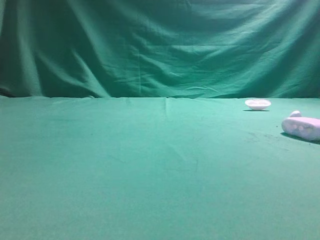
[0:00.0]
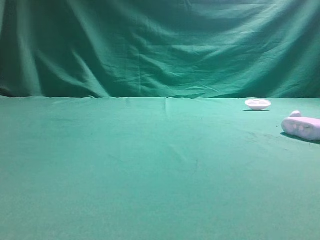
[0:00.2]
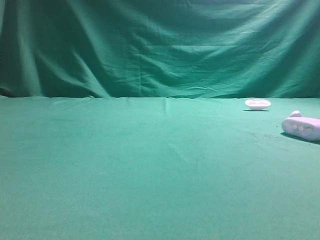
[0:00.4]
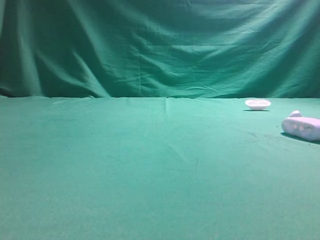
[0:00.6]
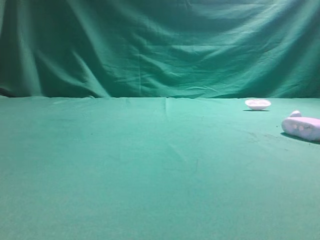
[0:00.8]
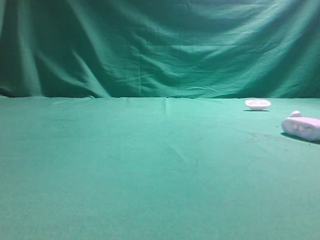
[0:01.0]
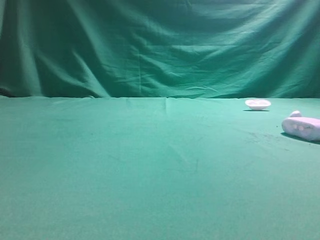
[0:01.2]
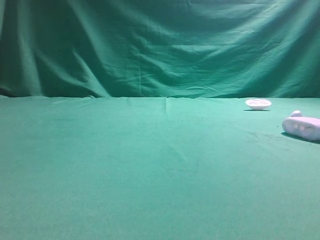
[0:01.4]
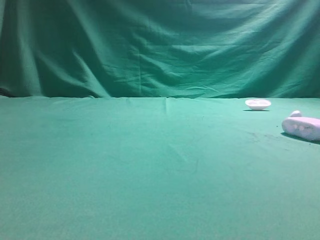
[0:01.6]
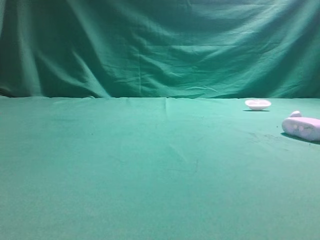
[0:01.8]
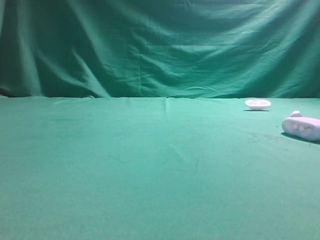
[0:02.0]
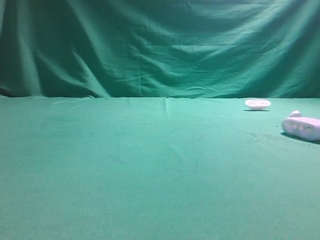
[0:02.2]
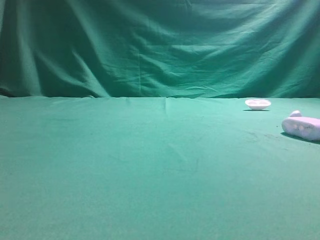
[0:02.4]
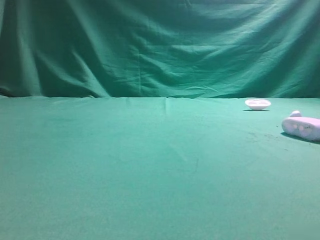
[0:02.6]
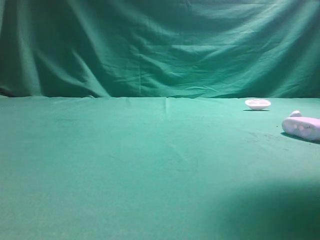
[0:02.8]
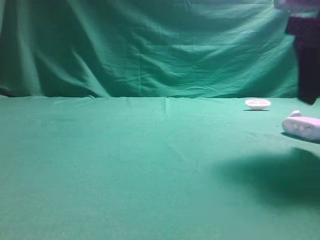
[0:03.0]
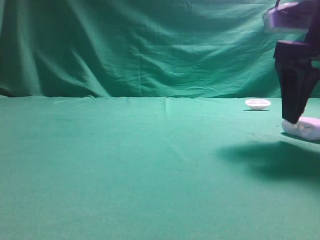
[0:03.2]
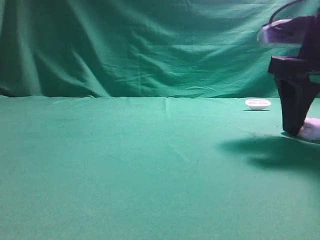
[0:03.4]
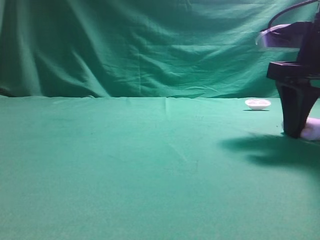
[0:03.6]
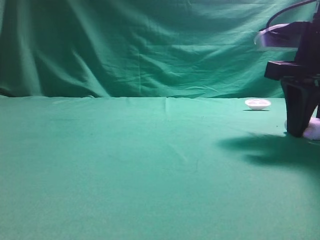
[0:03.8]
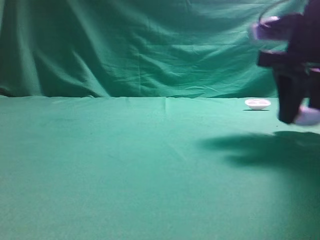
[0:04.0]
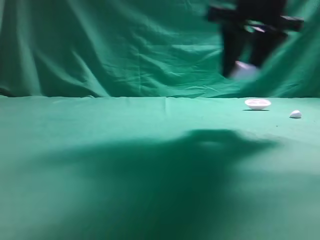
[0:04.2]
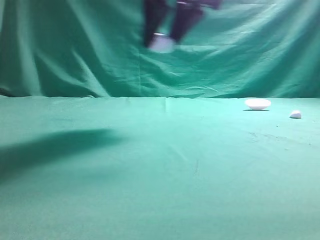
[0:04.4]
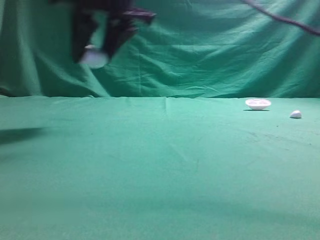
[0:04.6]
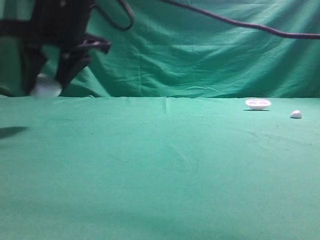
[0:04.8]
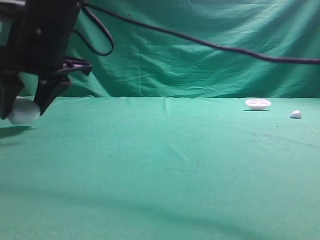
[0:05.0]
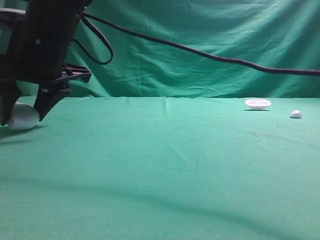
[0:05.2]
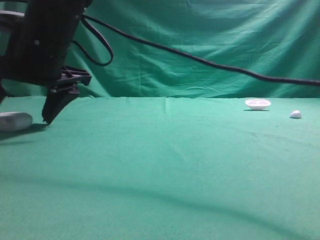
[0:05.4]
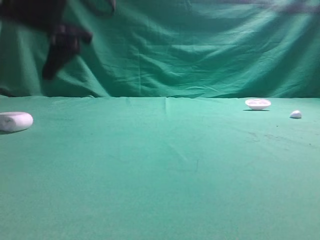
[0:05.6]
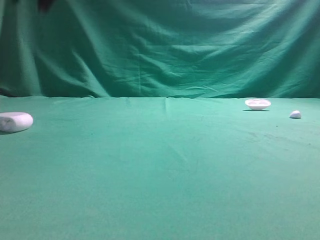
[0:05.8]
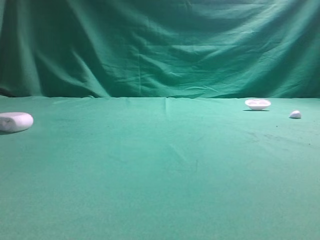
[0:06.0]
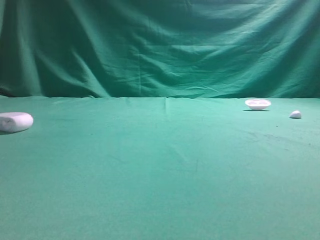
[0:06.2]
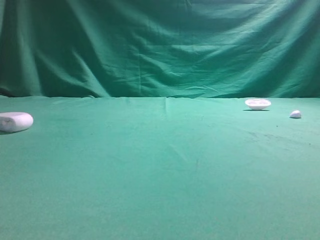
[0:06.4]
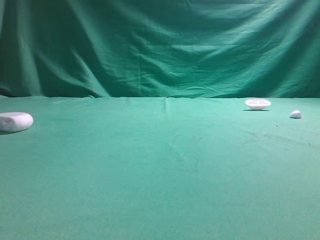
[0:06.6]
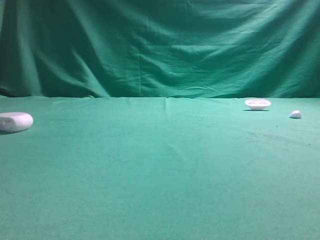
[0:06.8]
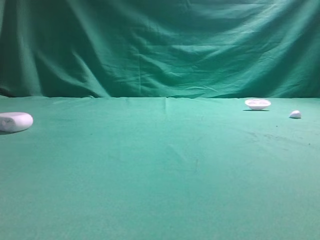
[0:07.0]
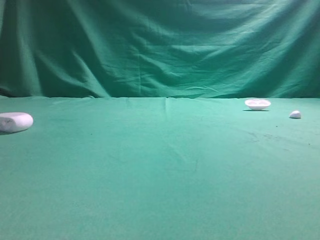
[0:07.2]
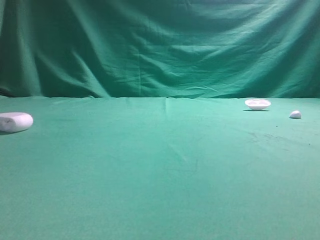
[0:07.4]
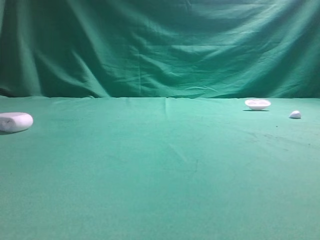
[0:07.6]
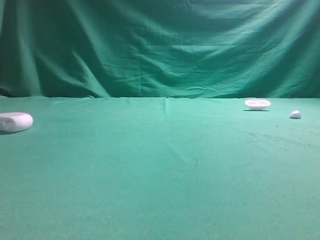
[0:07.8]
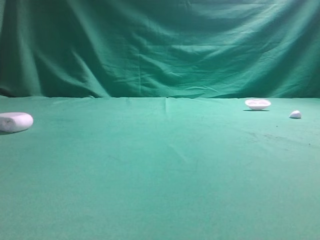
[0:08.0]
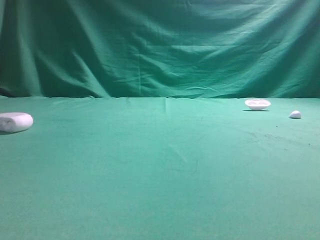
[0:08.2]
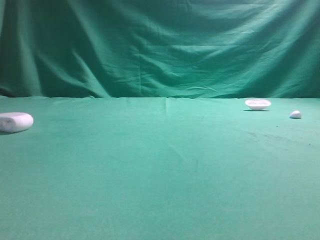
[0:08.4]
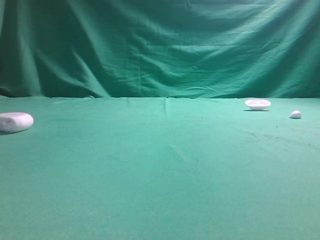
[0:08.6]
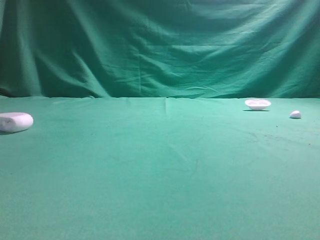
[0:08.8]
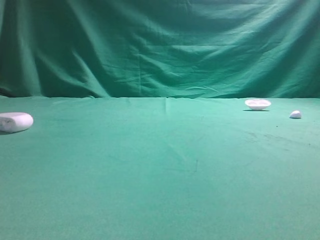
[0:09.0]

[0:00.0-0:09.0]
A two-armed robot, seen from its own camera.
Step, 0:00.0 to 0:04.2: Grasp the Bluetooth earphone case.
Step, 0:04.4 to 0:05.6: Place bluetooth earphone case on the left side of the table.

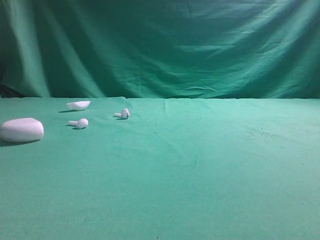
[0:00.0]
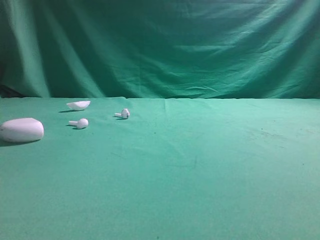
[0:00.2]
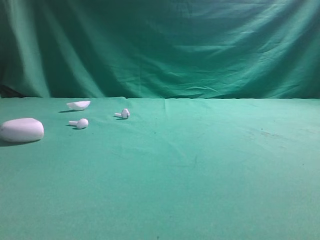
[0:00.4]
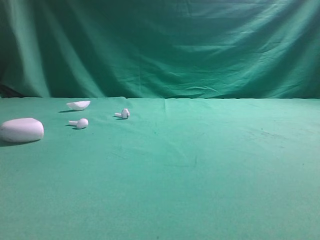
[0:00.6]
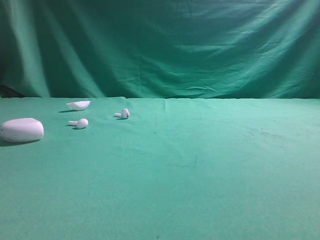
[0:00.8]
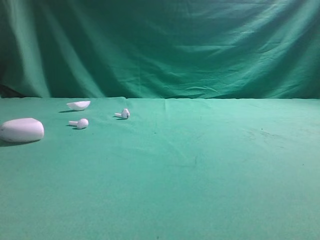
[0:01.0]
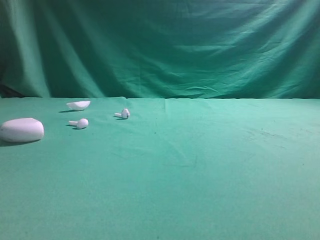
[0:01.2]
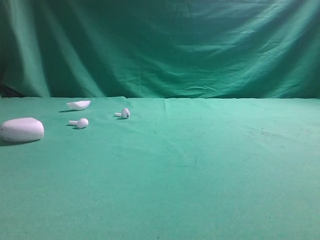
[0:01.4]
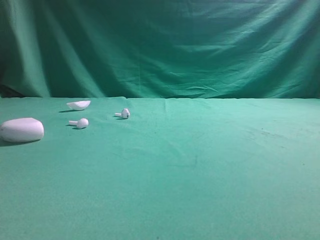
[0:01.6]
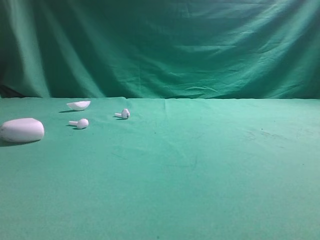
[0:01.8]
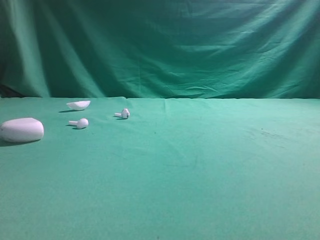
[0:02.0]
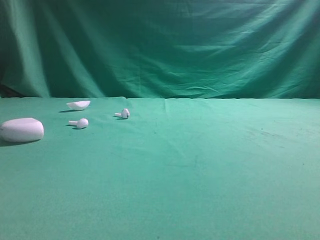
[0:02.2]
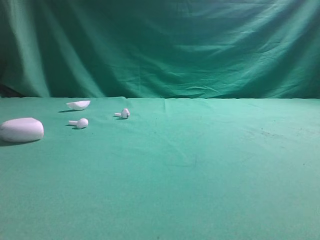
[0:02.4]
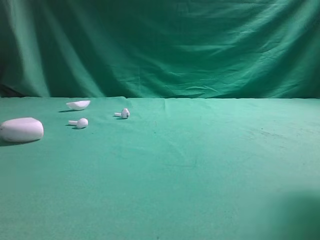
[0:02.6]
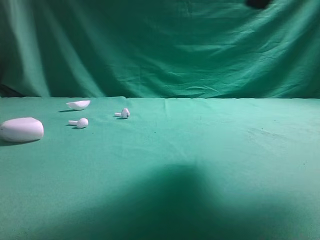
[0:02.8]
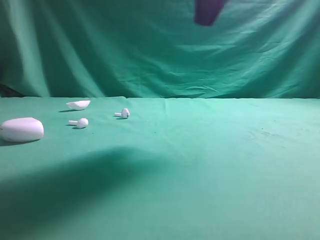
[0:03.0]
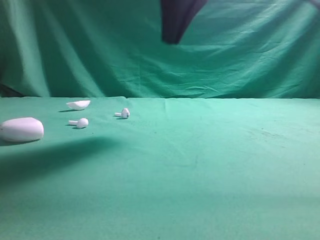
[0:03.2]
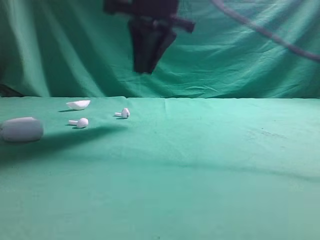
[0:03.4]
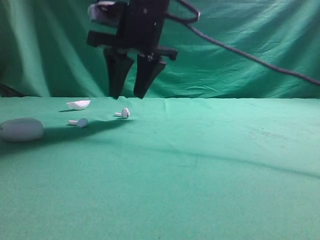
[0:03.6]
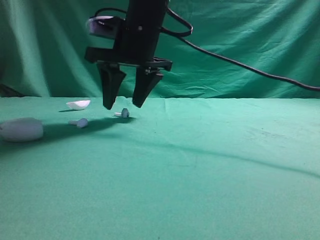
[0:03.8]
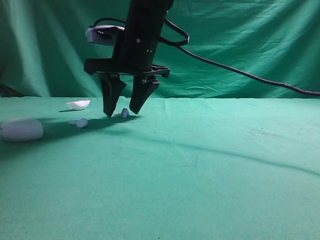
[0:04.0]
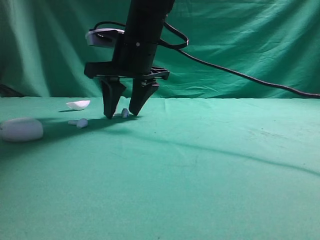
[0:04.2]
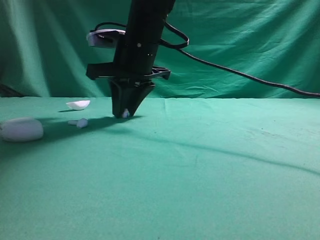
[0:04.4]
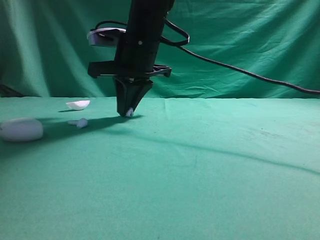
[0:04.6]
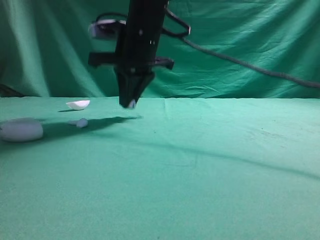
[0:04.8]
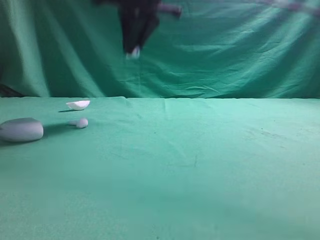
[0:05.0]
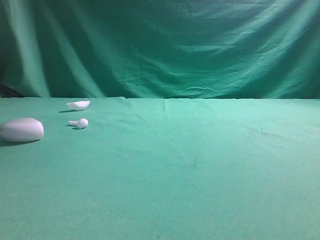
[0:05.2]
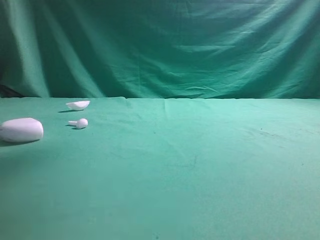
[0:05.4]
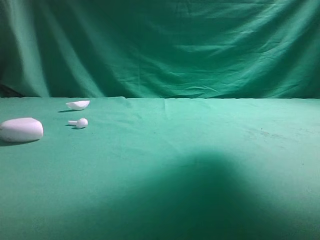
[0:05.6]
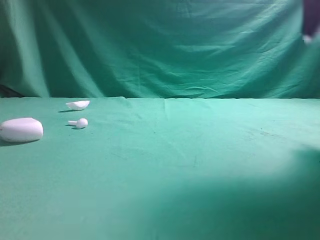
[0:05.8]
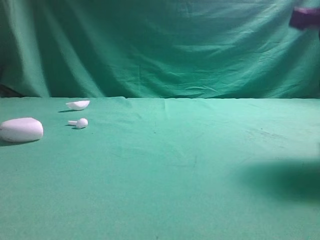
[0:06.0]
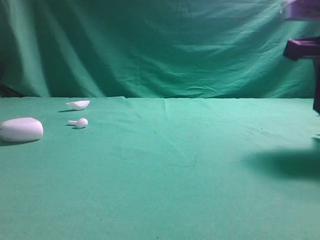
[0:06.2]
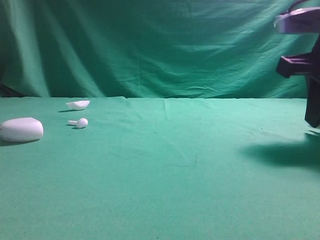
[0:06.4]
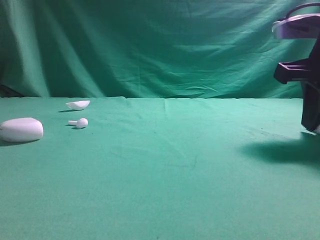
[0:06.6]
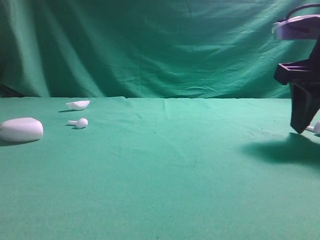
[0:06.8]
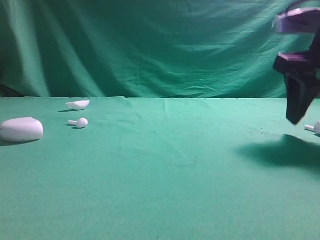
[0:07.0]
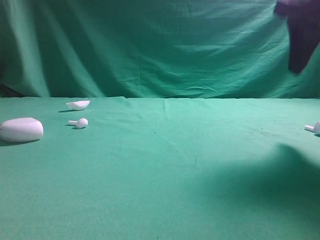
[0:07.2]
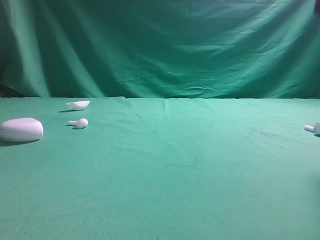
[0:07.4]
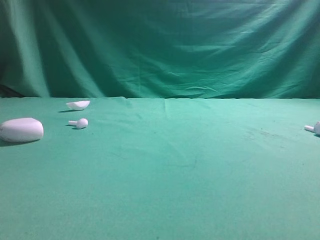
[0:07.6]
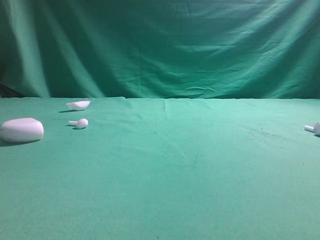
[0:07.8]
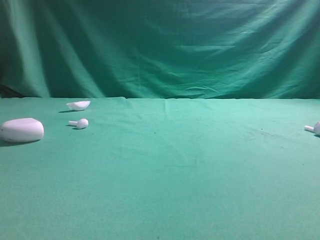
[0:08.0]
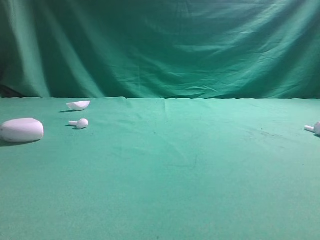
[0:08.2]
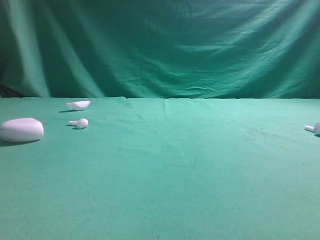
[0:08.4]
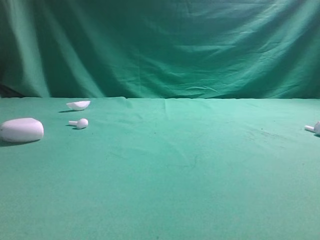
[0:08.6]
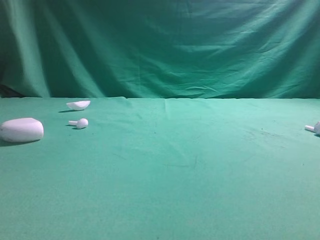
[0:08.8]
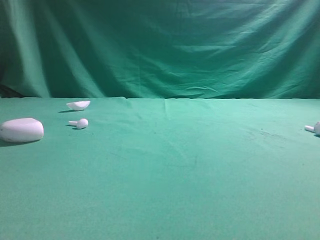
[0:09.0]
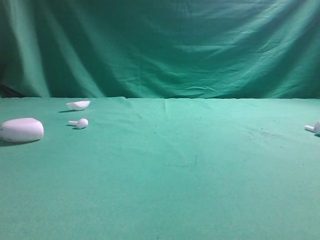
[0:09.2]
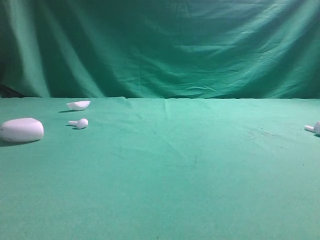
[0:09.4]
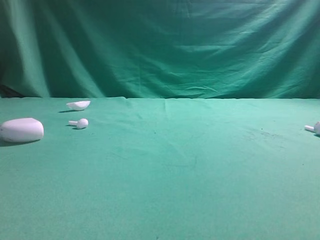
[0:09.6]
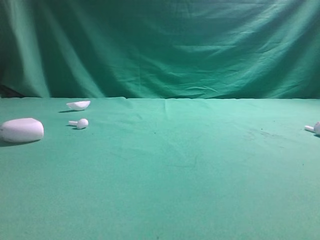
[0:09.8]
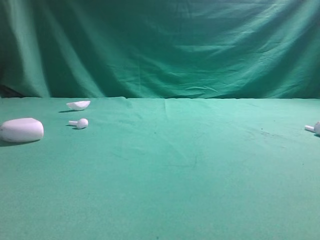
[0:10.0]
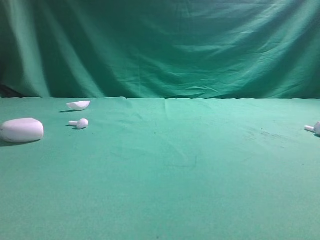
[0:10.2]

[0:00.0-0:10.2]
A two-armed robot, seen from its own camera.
Step, 0:00.0 to 0:05.0: Grasp the Bluetooth earbud.
Step, 0:05.2 to 0:07.2: Place bluetooth earbud on the right side of the table.

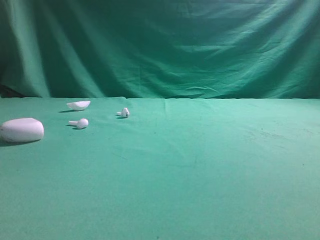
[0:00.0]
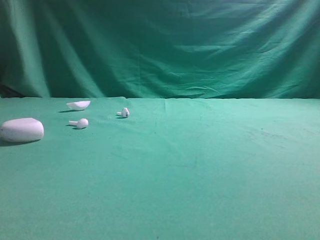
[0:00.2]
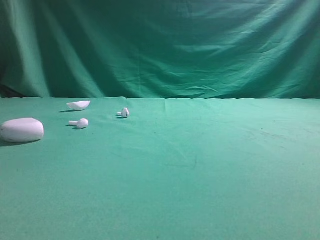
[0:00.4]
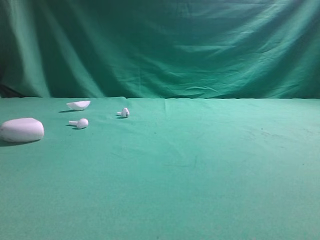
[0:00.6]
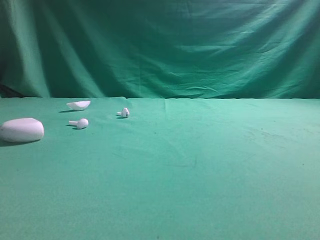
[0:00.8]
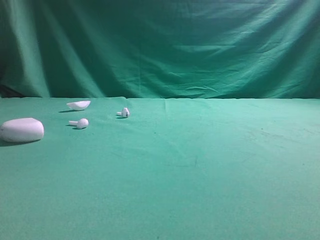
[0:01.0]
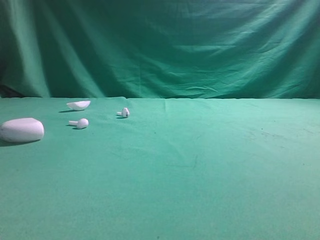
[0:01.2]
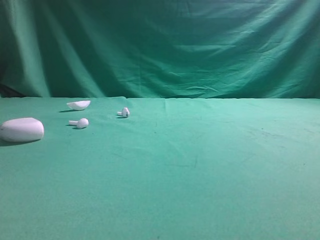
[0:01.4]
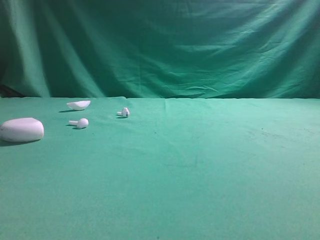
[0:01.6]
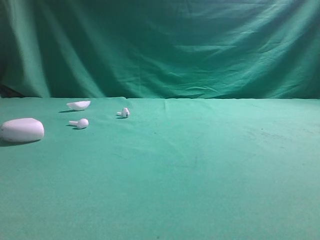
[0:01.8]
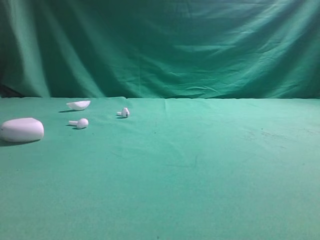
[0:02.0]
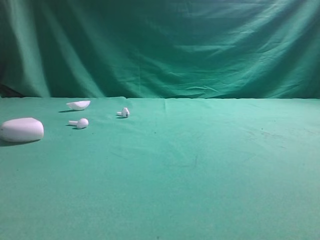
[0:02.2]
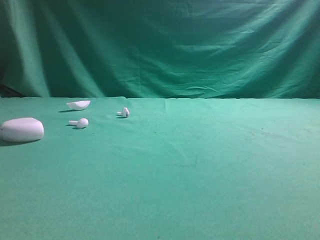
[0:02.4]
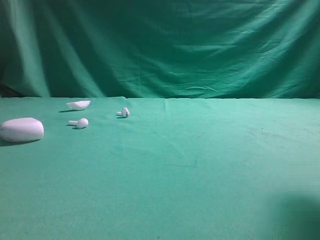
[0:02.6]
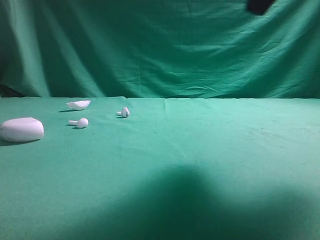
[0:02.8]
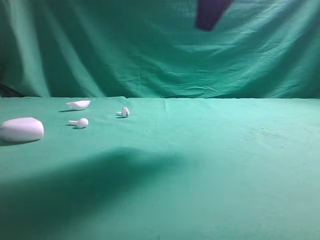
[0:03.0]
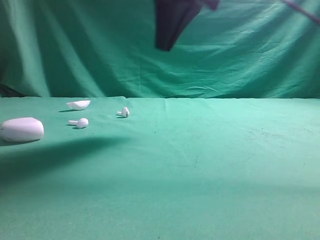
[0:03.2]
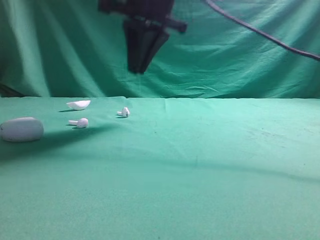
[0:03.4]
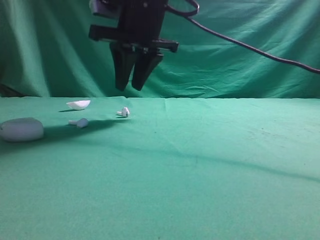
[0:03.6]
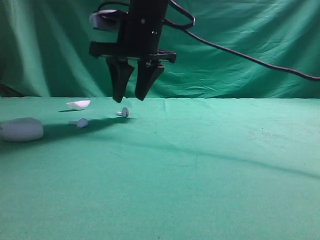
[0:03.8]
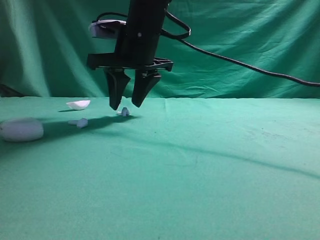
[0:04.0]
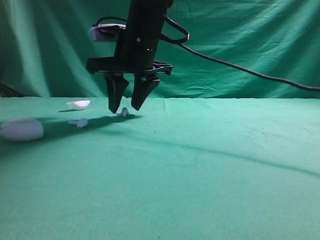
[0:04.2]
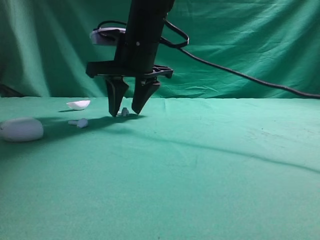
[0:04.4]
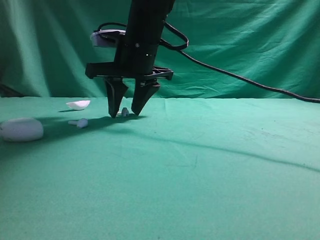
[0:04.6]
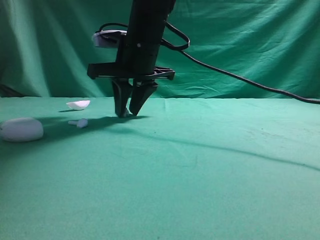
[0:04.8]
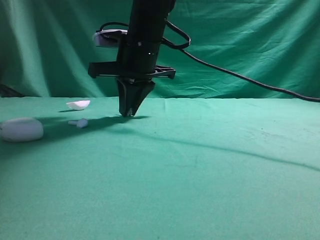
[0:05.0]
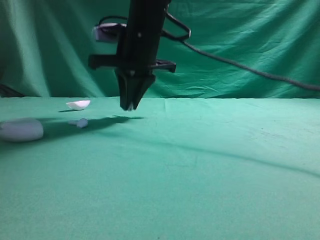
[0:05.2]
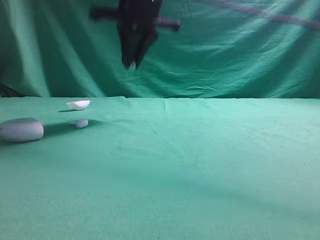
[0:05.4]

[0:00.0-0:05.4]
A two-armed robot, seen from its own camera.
Step, 0:00.0 to 0:05.4: Grasp the Bluetooth earbud.
